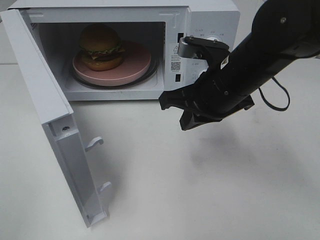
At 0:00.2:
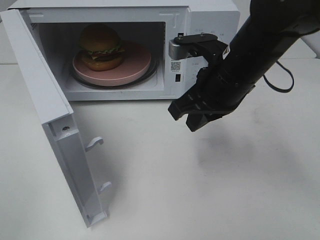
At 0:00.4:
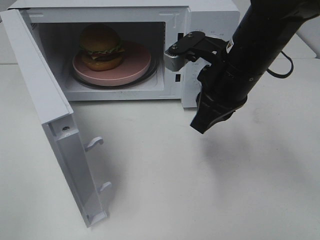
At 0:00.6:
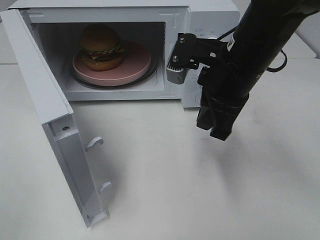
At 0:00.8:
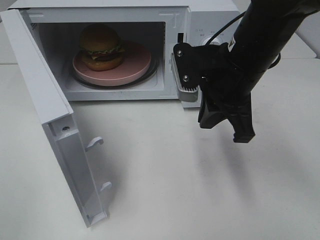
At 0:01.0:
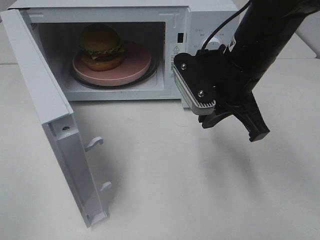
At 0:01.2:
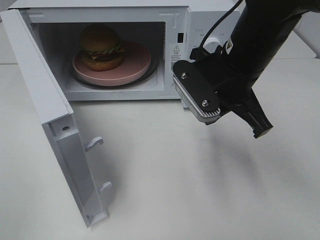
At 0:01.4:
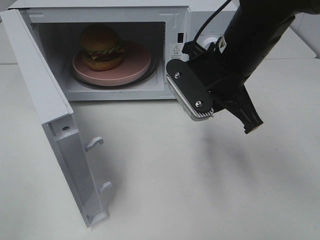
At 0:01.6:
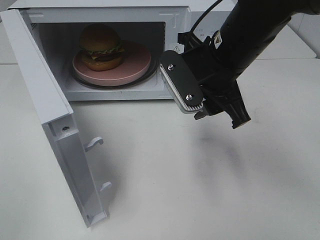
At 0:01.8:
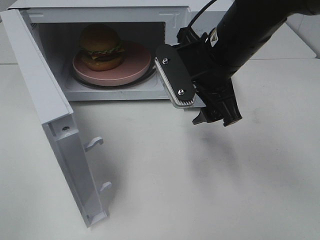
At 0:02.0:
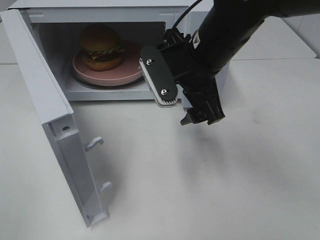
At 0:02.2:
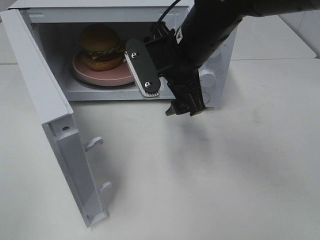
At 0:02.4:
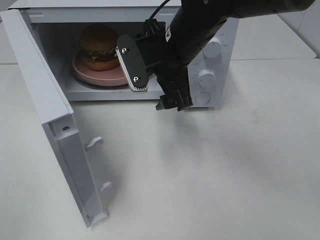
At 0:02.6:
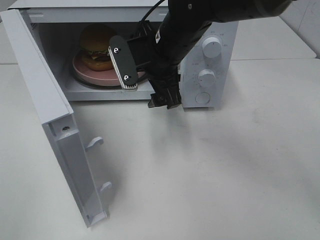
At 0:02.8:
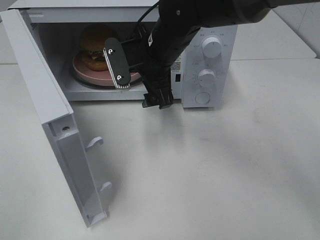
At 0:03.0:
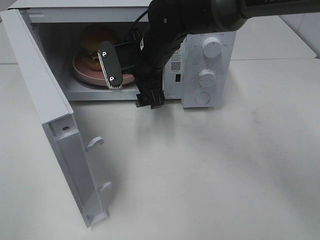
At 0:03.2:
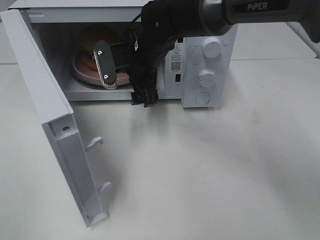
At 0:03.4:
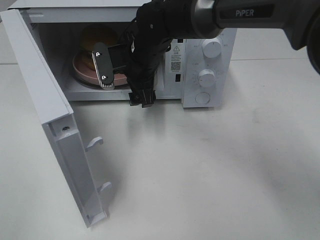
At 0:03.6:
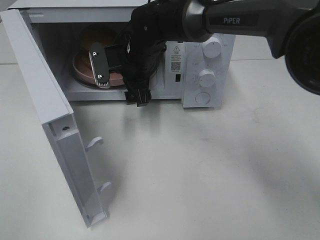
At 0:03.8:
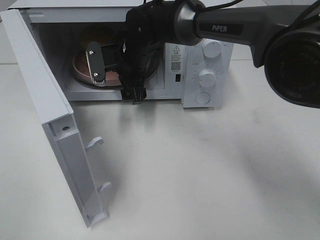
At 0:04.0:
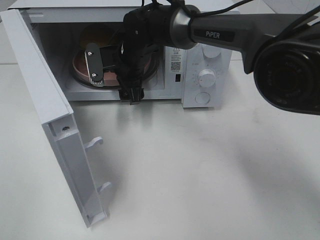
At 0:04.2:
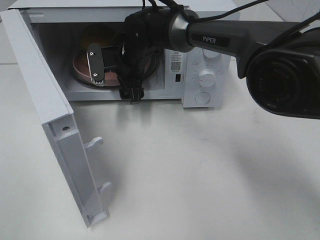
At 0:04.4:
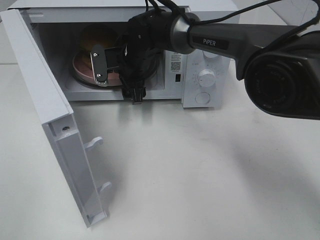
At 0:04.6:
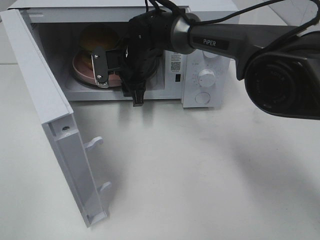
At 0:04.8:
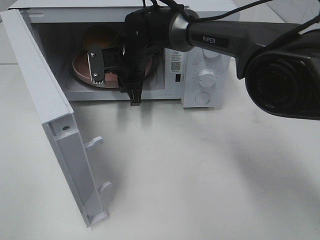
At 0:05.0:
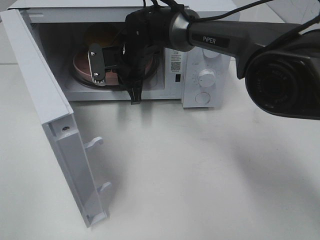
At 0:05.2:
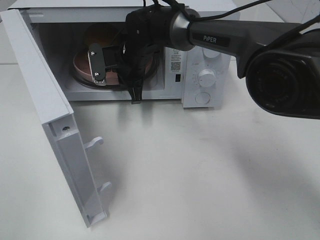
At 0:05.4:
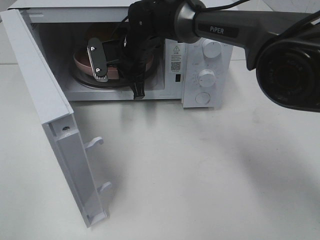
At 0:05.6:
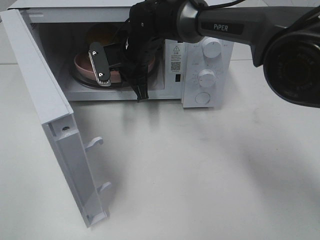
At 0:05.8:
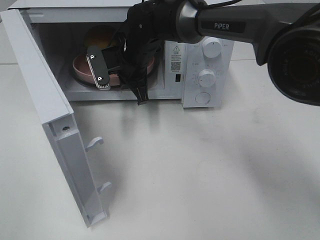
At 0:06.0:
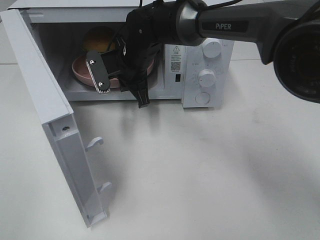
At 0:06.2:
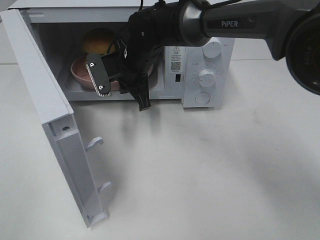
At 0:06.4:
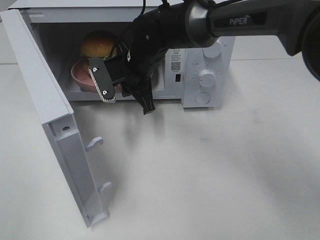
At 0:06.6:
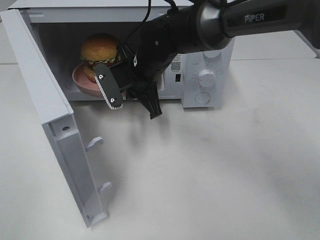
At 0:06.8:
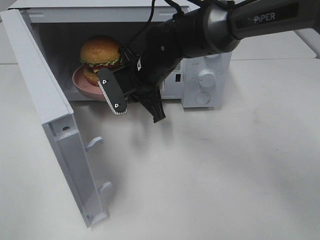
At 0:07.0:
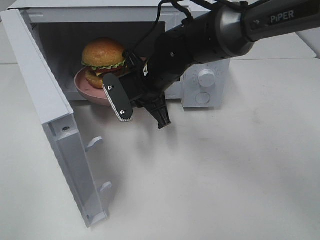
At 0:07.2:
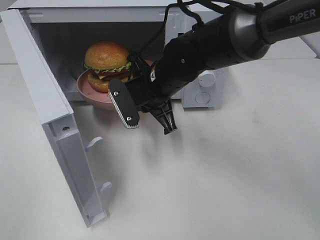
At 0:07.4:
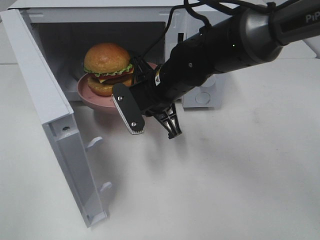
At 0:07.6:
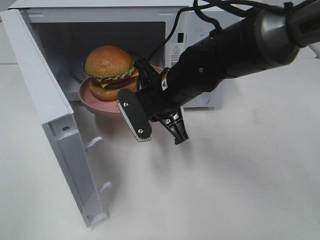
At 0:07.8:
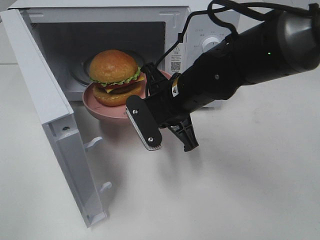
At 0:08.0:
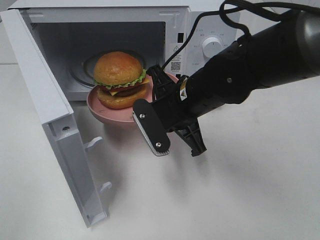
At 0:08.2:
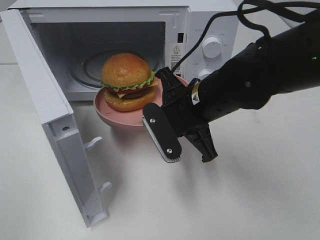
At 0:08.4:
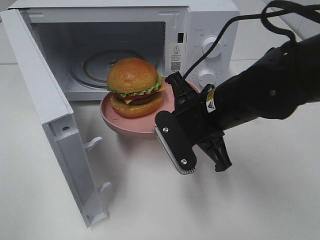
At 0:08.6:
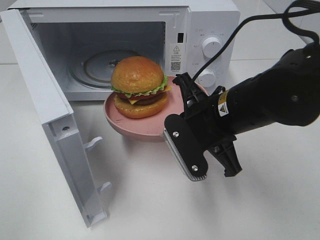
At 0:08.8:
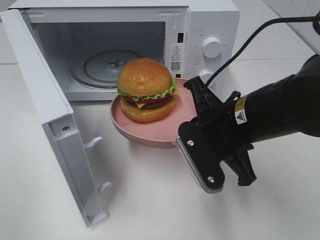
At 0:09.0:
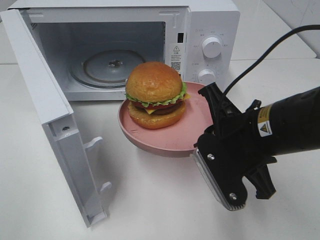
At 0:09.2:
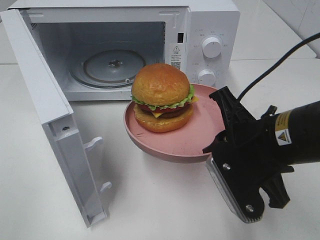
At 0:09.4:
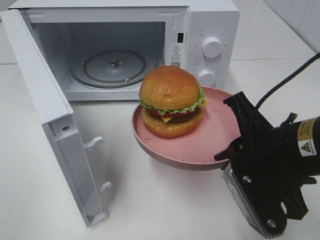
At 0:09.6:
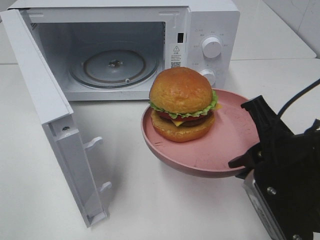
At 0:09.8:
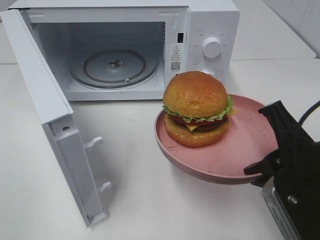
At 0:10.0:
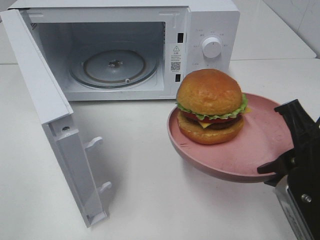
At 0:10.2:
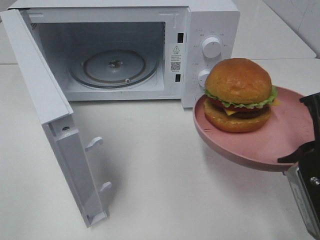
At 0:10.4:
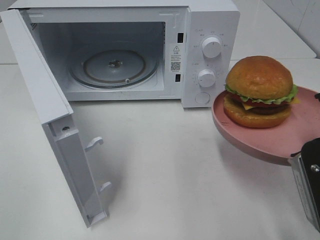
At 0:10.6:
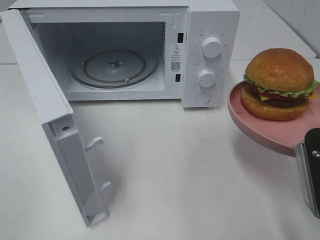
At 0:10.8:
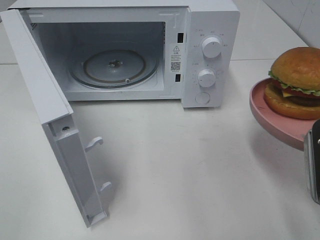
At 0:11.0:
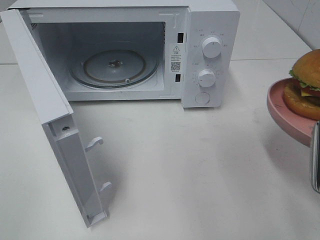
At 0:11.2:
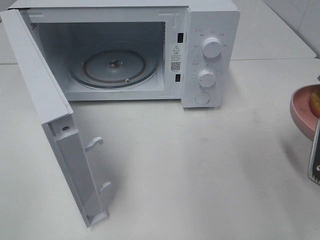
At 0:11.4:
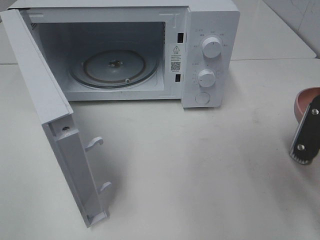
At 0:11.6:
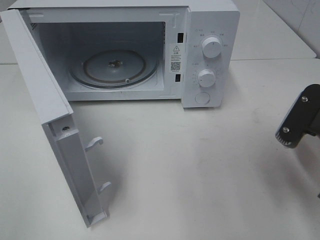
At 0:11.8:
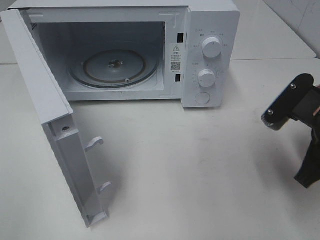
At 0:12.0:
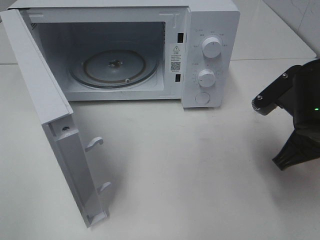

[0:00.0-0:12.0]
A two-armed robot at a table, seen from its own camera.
Task of the whole recording: Heat the burger.
Step, 0:00.0 to 0:05.2: Right hand: grab the plate with the hamburger.
0:00.0 to 0:01.6: The right gripper opens its fingers.
0:01.6 to 0:03.0: The right gripper is displaced forward, to the left and downward by about 15 cm.
0:03.0 to 0:04.4: The right gripper goes some 5 cm forward.
0:04.4 to 0:06.0: The right gripper closes its fingers.
0:06.0 to 0:07.6: The right gripper is displaced backward and to the right by about 10 cm.
0:07.6 to 0:09.0: The right gripper goes some 15 cm backward and to the right.
0:09.0 to 0:10.4: The right gripper moves to the right and backward, approximately 10 cm.
0:10.4 to 0:12.0: The right gripper goes some 10 cm forward.

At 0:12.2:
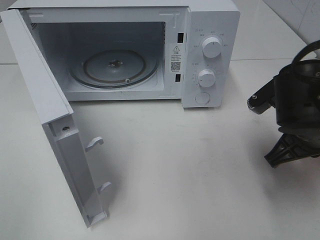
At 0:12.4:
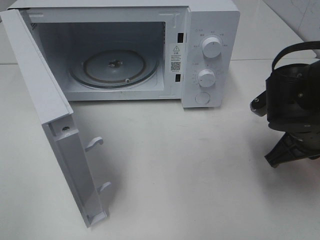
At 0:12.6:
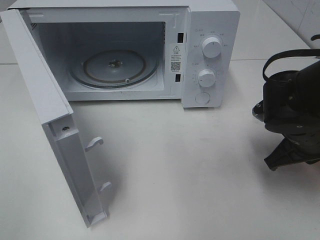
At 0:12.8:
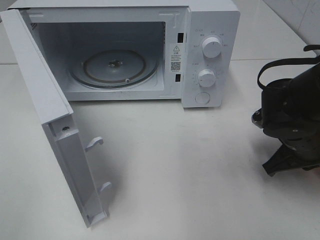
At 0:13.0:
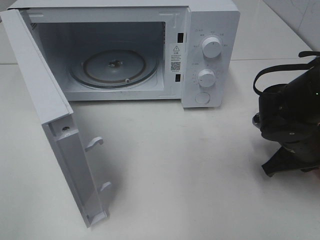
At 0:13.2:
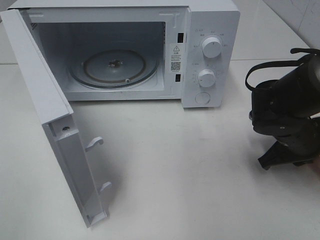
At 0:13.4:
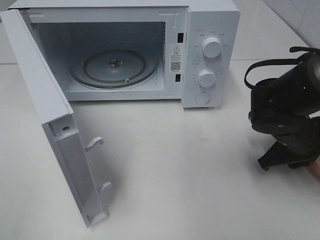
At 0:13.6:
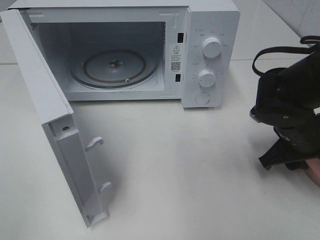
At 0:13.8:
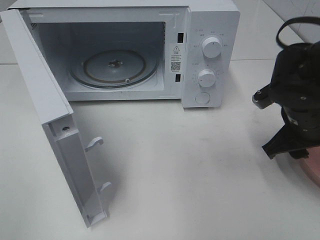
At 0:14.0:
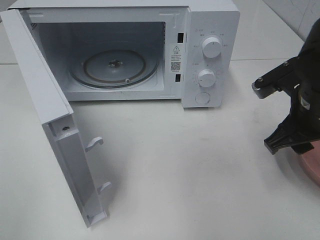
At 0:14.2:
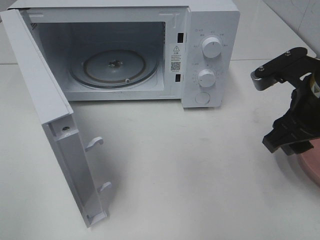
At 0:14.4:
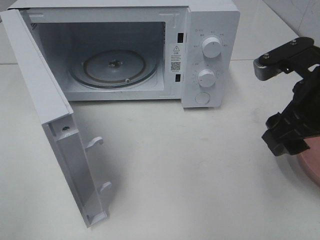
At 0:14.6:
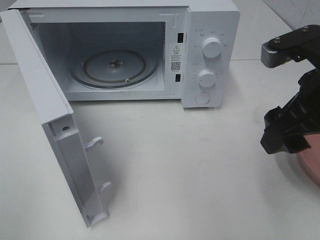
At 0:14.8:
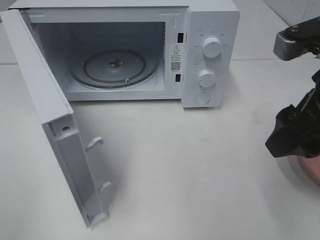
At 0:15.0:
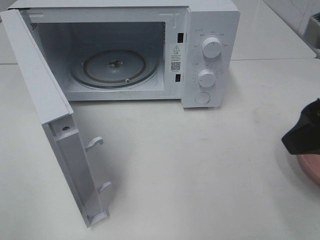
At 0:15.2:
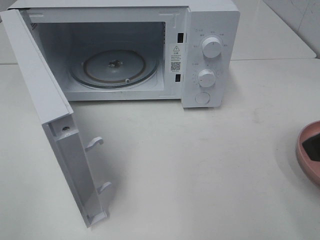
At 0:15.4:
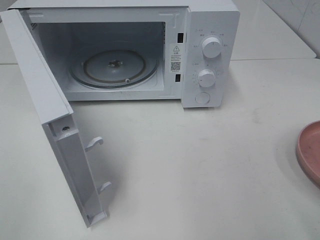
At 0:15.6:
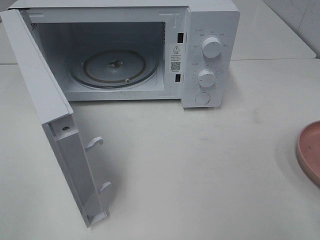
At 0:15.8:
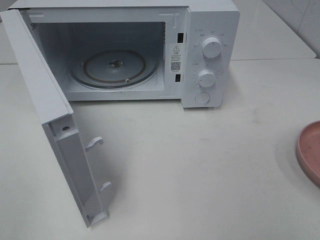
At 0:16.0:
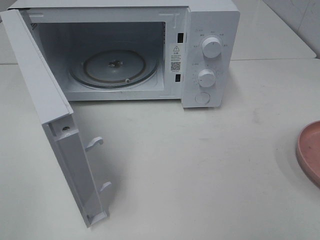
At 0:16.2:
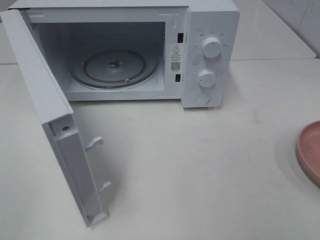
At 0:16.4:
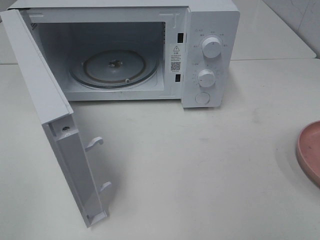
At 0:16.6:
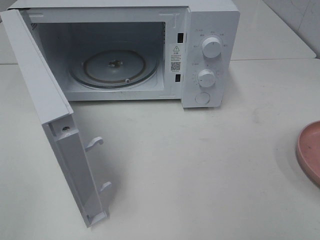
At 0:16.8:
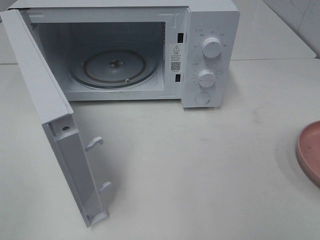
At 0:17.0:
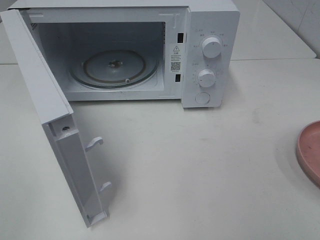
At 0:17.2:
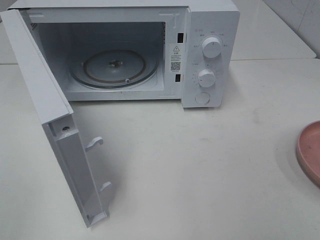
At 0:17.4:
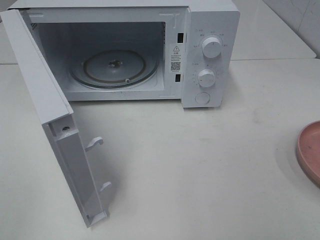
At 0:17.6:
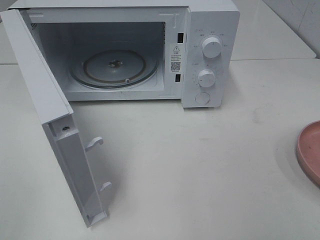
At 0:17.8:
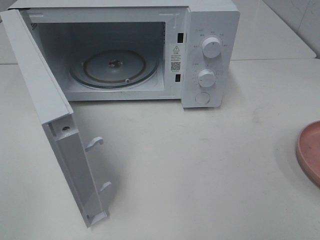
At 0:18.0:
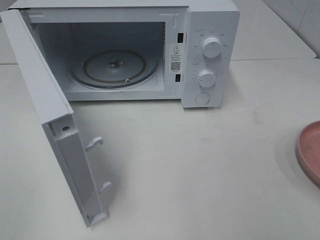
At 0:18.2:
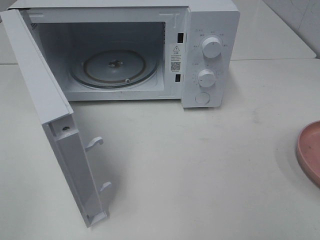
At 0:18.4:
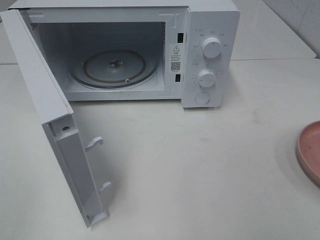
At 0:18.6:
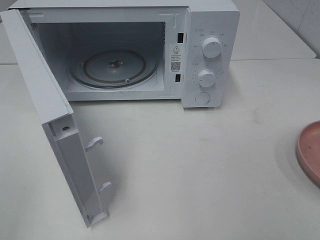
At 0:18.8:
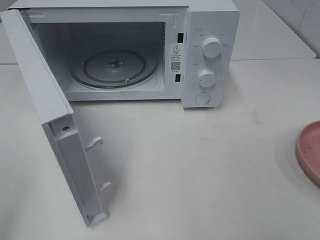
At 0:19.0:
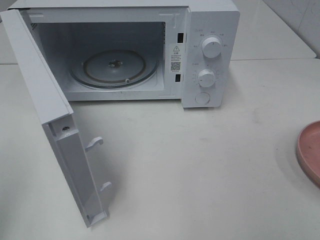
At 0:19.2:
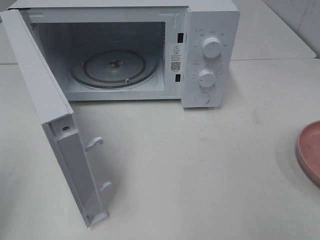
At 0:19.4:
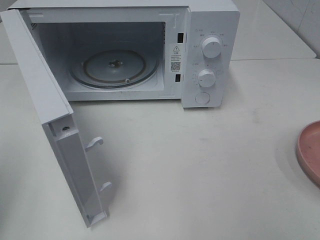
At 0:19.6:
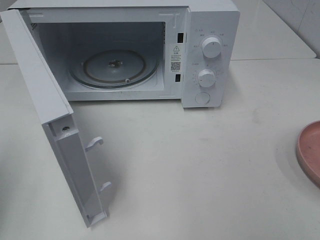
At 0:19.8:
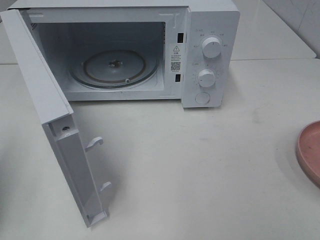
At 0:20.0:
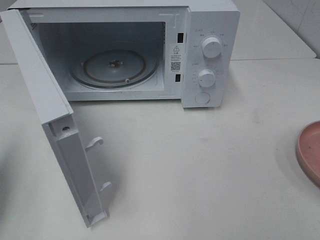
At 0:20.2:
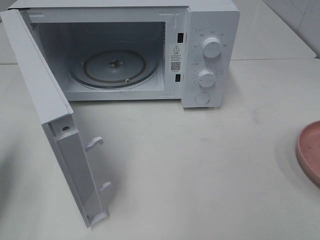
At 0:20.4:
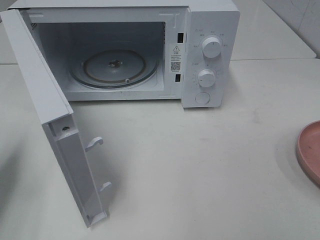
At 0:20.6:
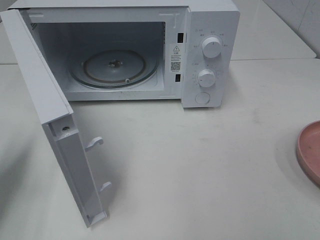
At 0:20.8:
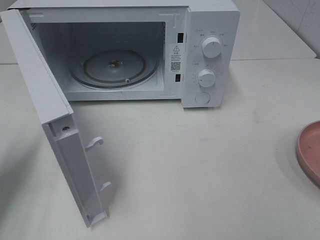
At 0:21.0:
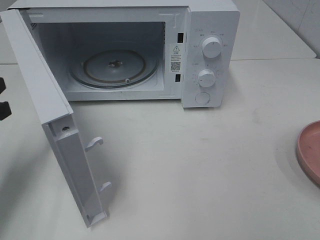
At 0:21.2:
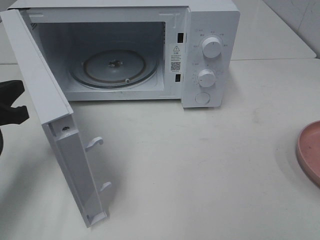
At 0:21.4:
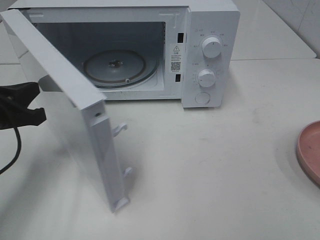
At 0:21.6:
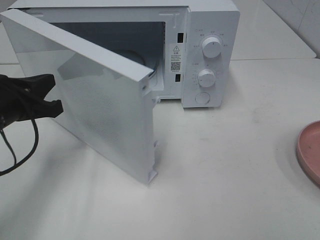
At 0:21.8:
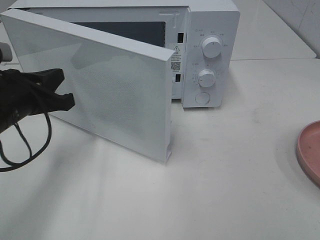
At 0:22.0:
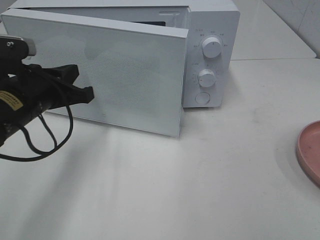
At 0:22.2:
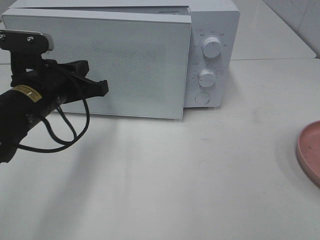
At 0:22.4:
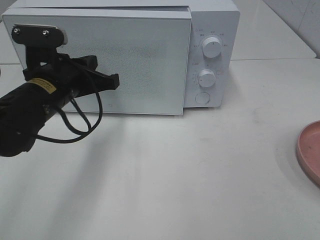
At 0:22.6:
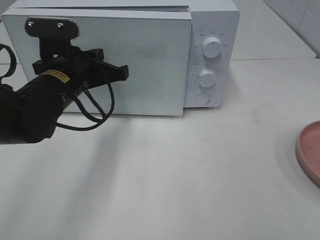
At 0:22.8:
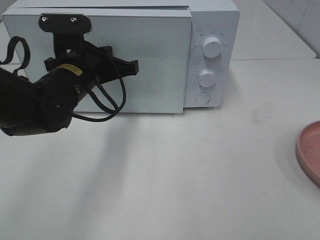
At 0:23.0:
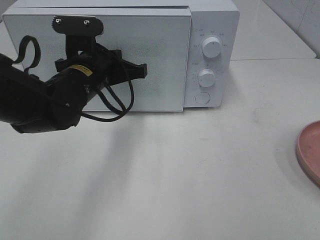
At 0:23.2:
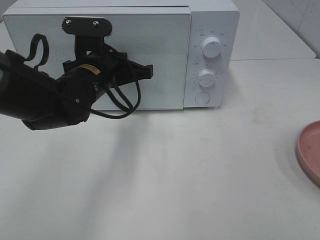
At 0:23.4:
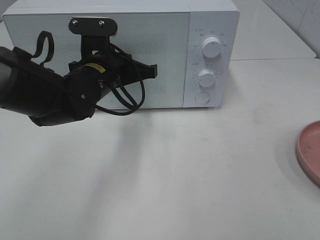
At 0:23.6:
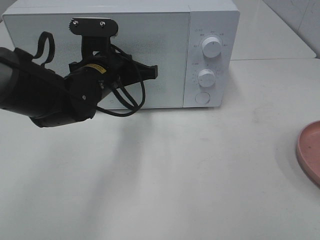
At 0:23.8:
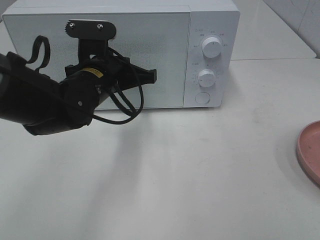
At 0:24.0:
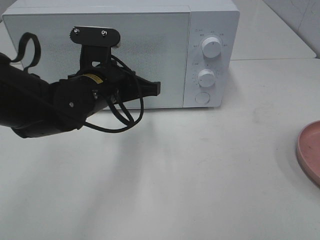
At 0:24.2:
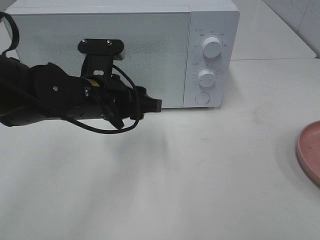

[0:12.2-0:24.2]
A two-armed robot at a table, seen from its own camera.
Task of the whole recording: Heat the burger.
Step, 0:14.2 to 0:24.0: Left hand: close the microwave door.
0:12.2 to 0:13.8: The right gripper opens.
0:13.8 to 0:15.2: The right gripper goes some 20 cm upward and backward.
0:15.2 to 0:16.6: The right gripper heads backward and to the right, covering approximately 15 cm.
0:16.6 to 0:18.2: Both grippers stay put.
0:18.2 to 0:19.8: The left gripper travels forward by roughly 15 cm, and closes.
0:19.8 to 0:21.2: The left gripper is displaced forward, downward and to the right by roughly 15 cm.
0:21.2 to 0:22.6: The left gripper travels to the right and forward by roughly 15 cm.
0:22.6 to 0:24.2: The left gripper shifts by some 5 cm, and opens up.
